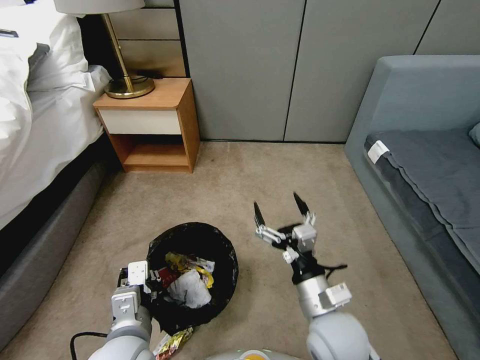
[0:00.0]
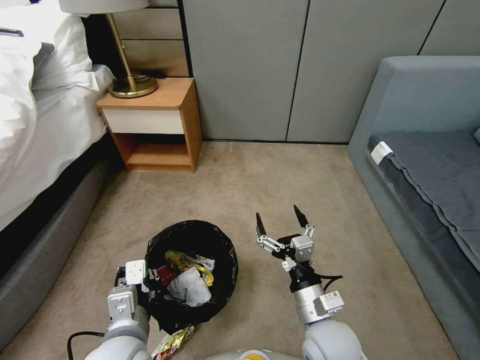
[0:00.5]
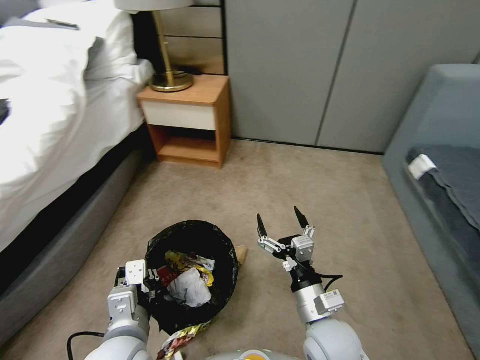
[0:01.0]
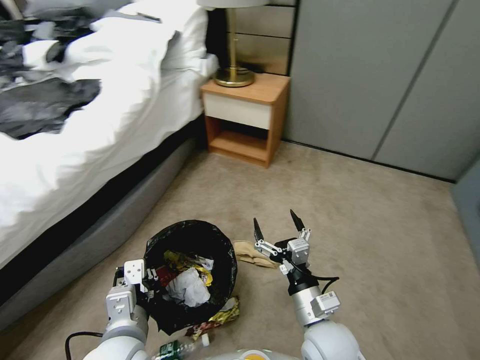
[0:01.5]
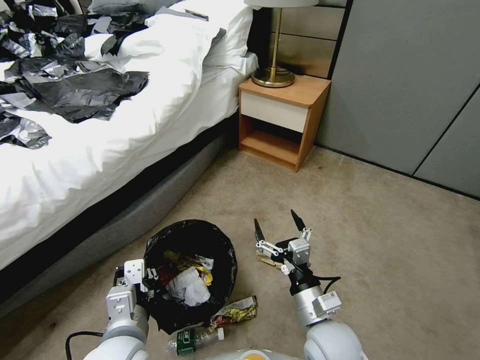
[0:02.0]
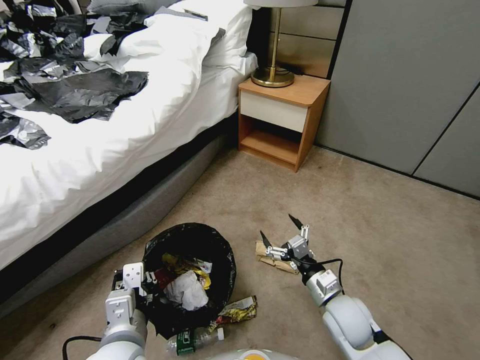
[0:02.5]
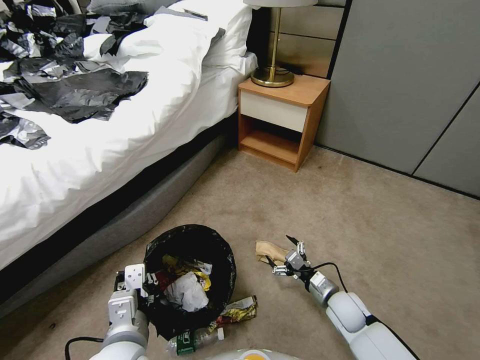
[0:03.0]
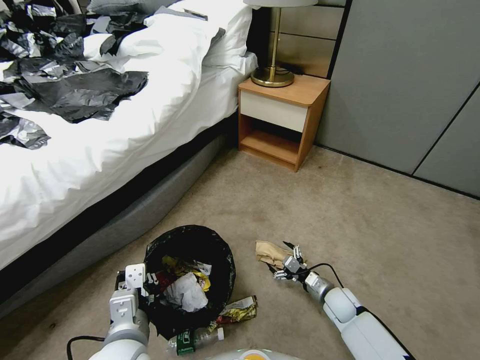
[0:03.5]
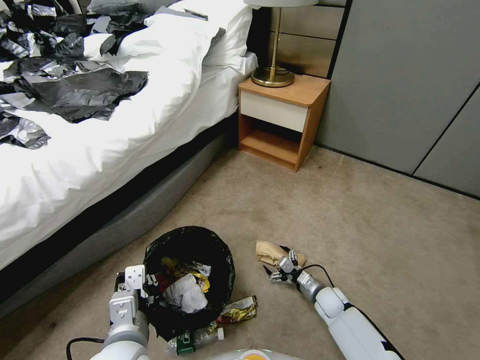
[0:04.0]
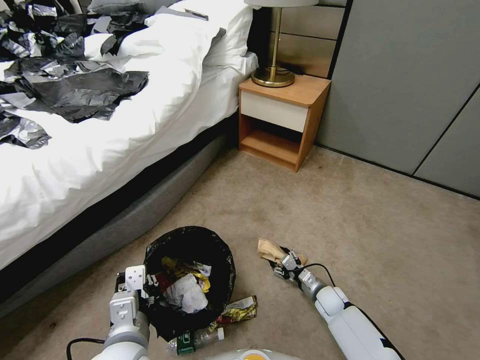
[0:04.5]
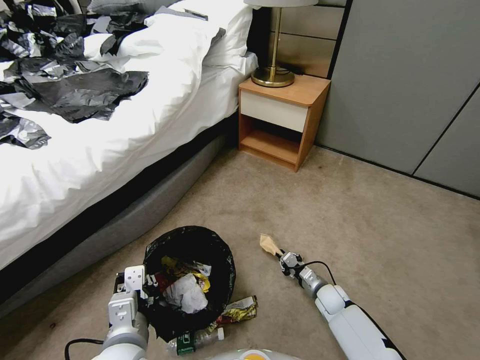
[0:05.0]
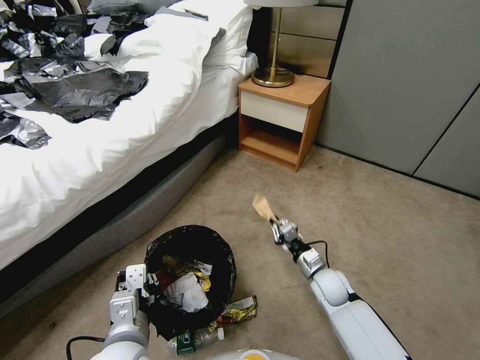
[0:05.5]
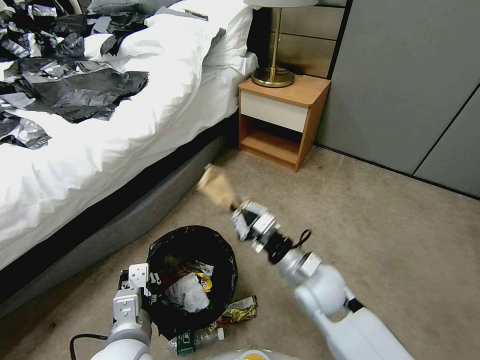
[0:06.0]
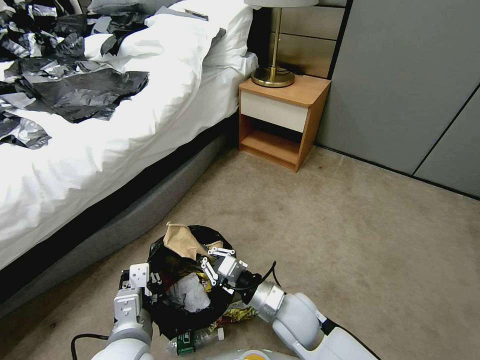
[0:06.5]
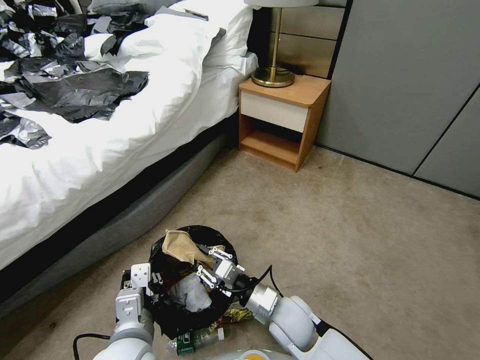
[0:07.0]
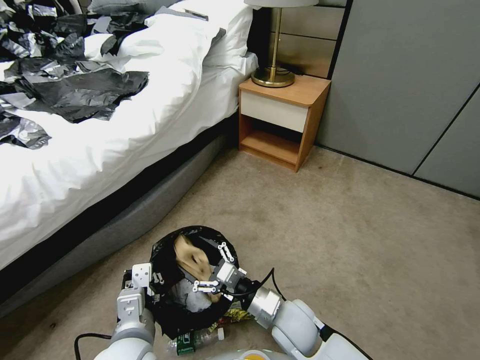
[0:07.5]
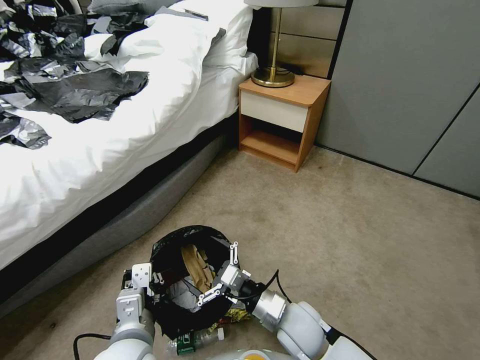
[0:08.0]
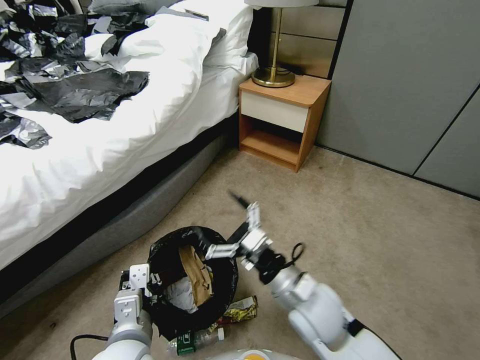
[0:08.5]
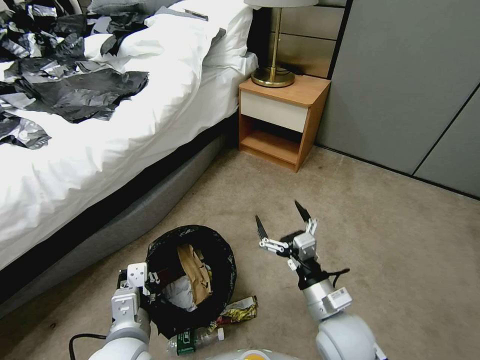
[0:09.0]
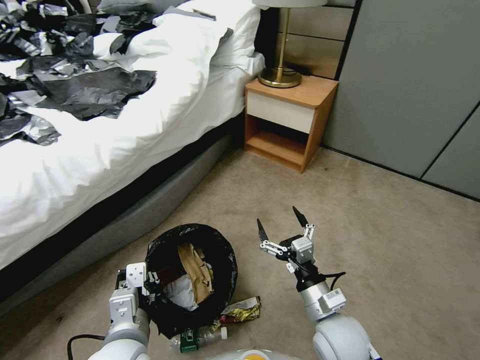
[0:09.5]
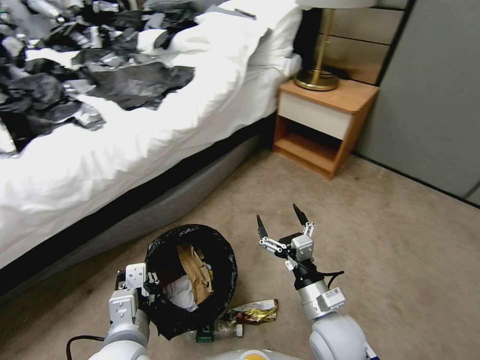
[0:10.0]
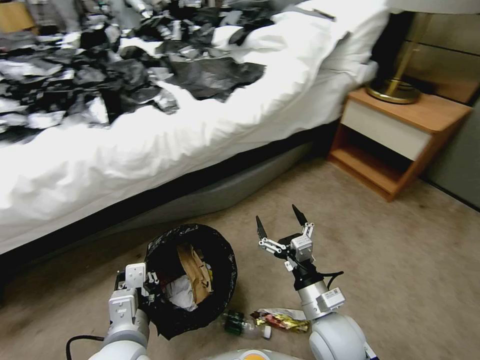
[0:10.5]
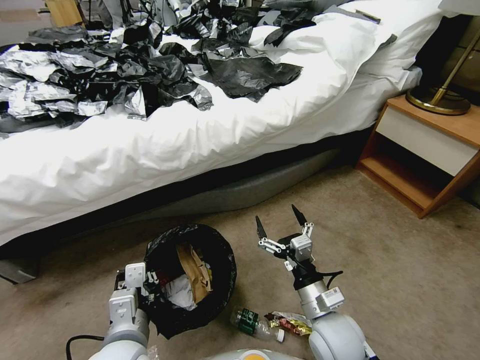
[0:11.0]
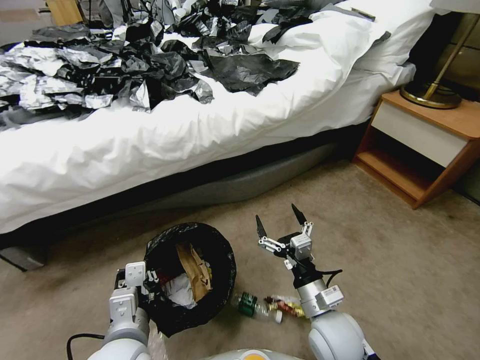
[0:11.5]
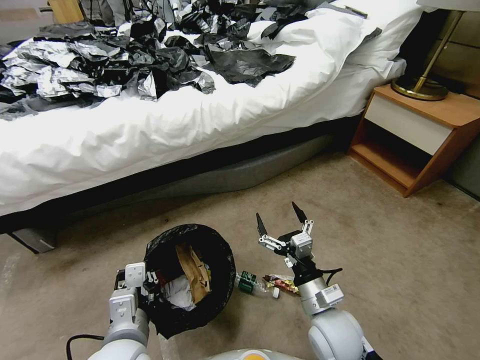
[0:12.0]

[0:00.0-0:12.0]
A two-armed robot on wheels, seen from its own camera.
Task of the whole recording: Pick up the trash bin, then pick up the garbage from the floor and place it into the trash bin.
0:02.0 to 0:04.0: The right gripper is displaced downward, forward and to the right by roughly 30 cm.
0:04.0 to 0:06.0: The right gripper moves upward and to the left, roughly 30 cm, and closes its fingers.
0:06.0 to 0:08.0: The right gripper goes about 10 cm downward and backward, and opens up.
0:08.0 to 0:10.0: The right gripper moves to the right, roughly 5 cm.

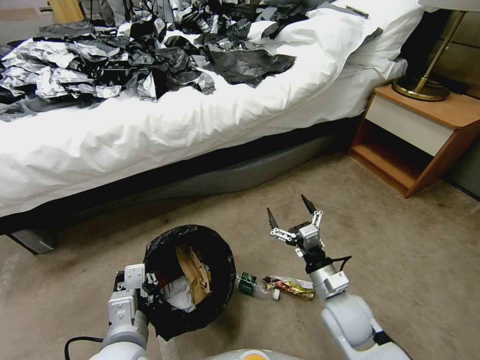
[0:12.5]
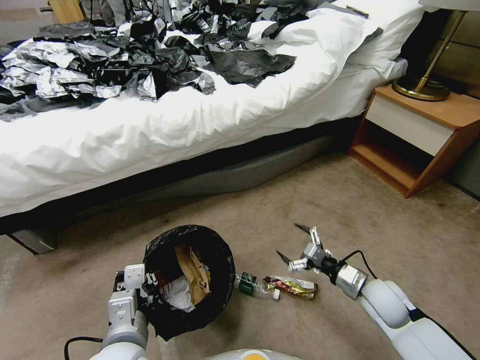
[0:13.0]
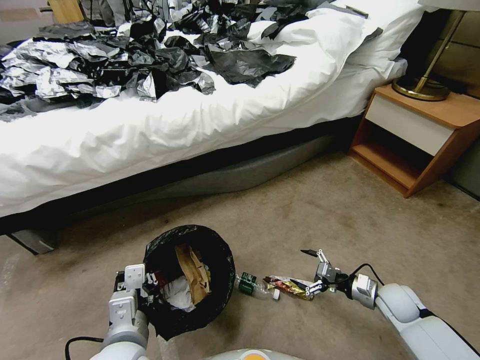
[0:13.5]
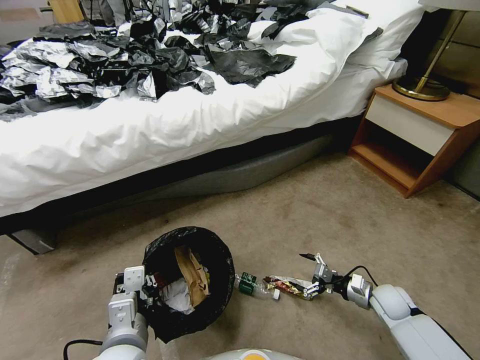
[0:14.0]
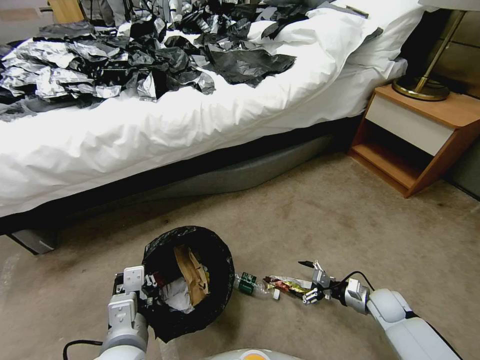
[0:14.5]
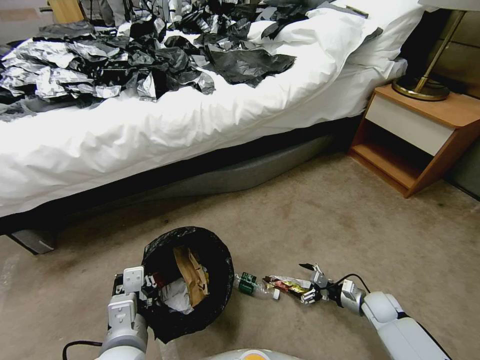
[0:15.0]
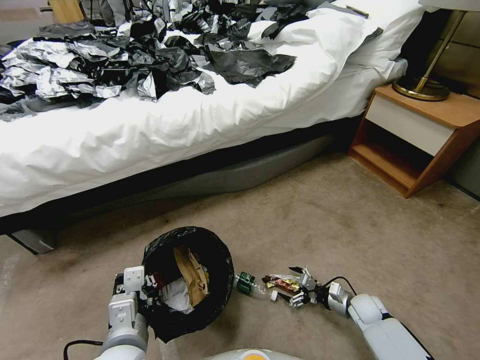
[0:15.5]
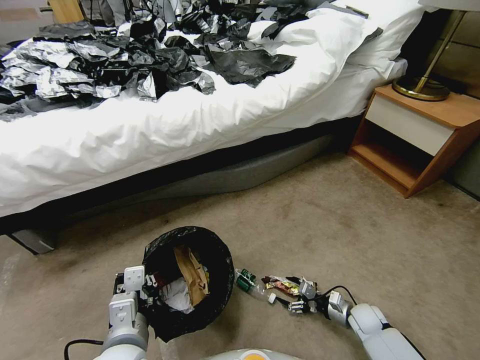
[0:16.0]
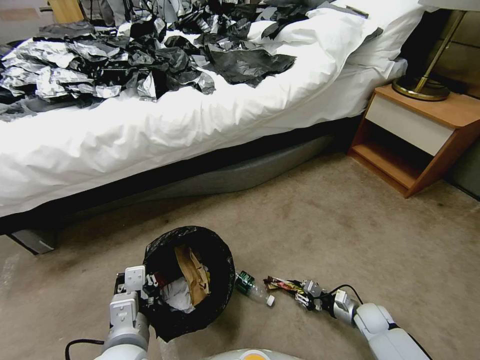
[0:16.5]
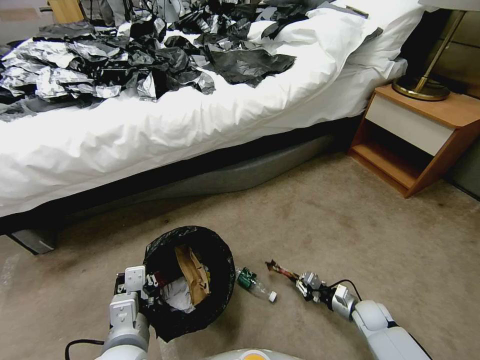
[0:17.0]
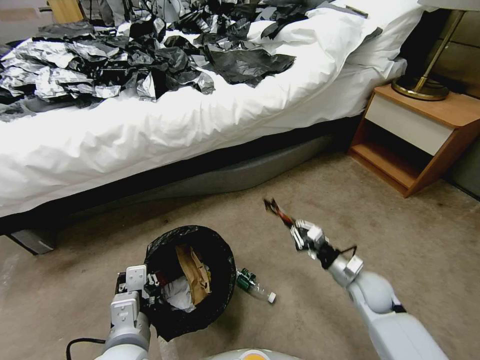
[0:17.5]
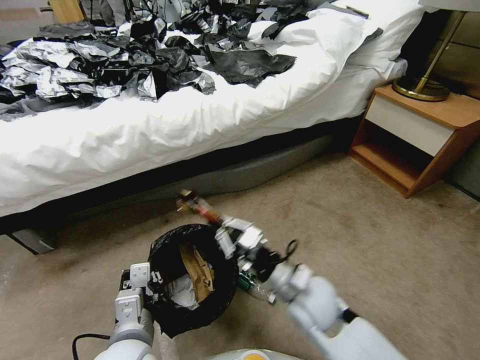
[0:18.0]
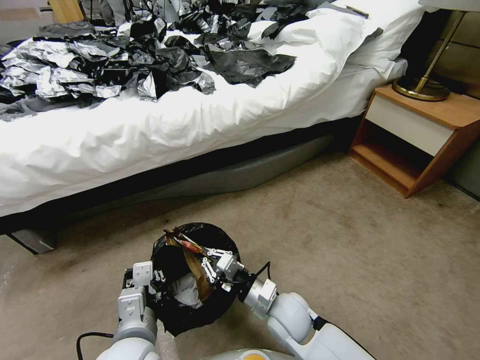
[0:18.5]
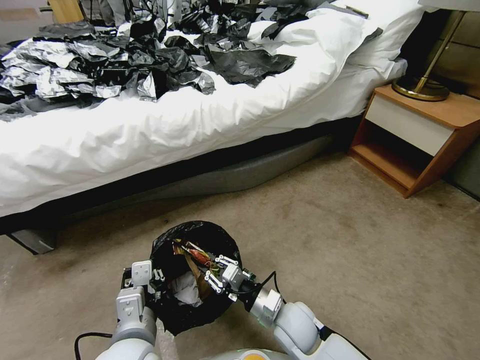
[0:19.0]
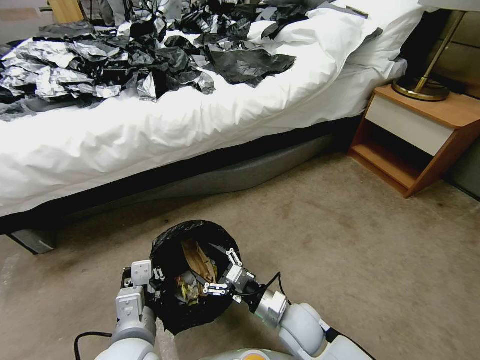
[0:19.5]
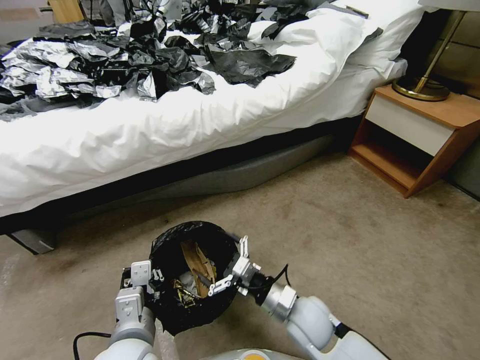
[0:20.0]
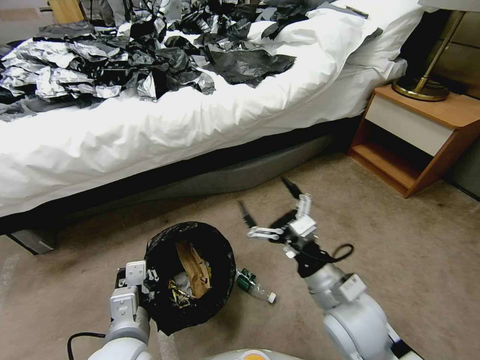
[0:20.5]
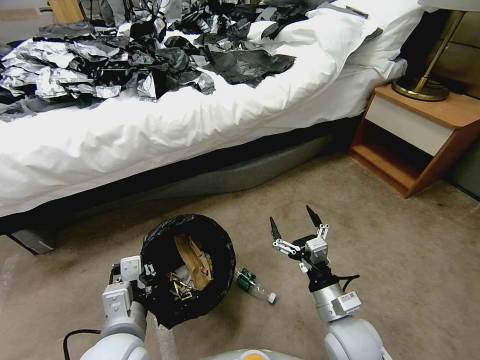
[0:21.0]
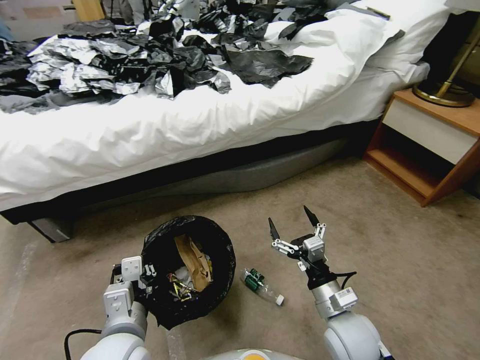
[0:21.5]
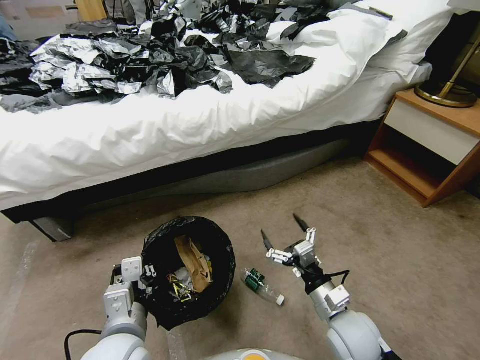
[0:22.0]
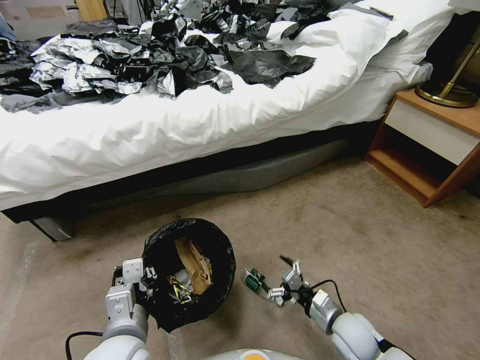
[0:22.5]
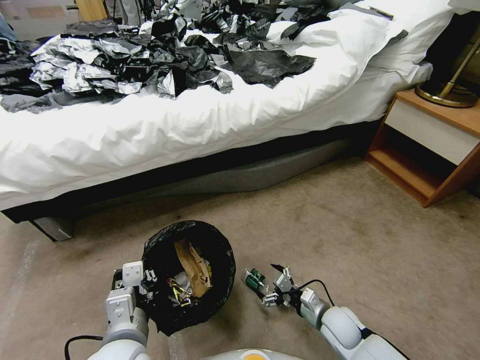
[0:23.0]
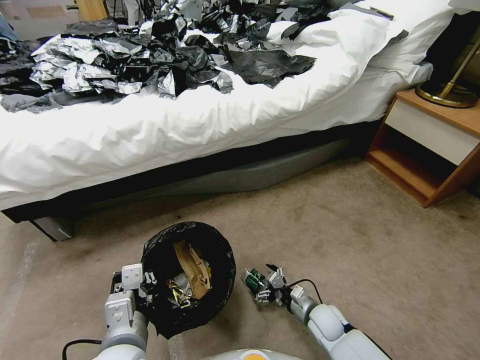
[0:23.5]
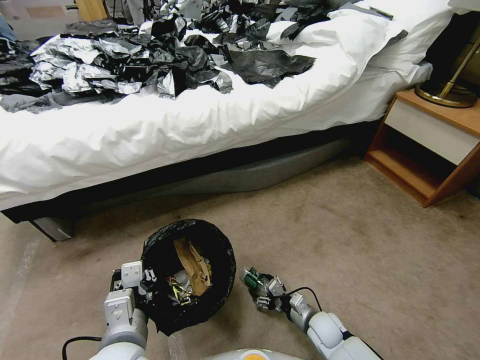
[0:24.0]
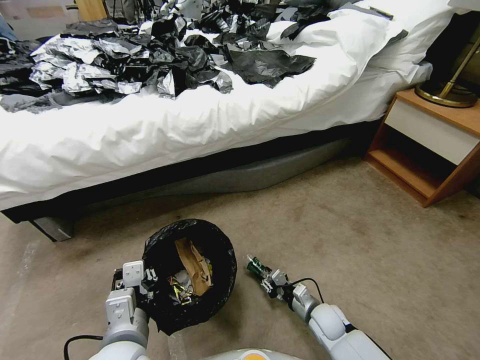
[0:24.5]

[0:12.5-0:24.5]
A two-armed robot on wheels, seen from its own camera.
Task of the whole recording: Pick up the trash bin, then pick up the garbage from the floor and place it into the trash bin.
0:12.5 to 0:14.5: The right gripper goes approximately 25 cm to the right and downward.
0:14.5 to 0:16.5: The right gripper travels downward by about 5 cm, and closes.
0:16.5 to 0:18.5: The right gripper shifts approximately 30 cm to the left and upward.
0:18.5 to 0:20.5: The right gripper moves upward and to the right, about 15 cm, and opens up.
0:20.5 to 0:22.5: The right gripper moves downward, some 20 cm.
0:22.5 to 0:24.5: The right gripper travels downward by approximately 10 cm, and closes its fingers.

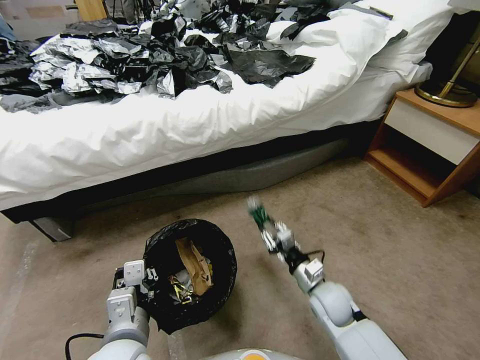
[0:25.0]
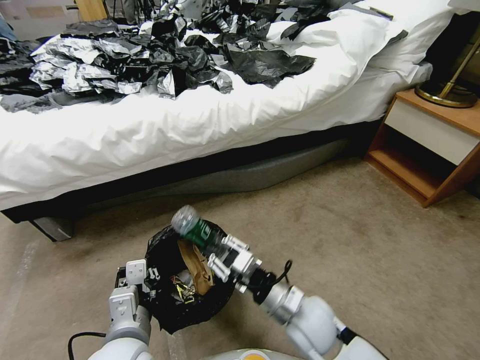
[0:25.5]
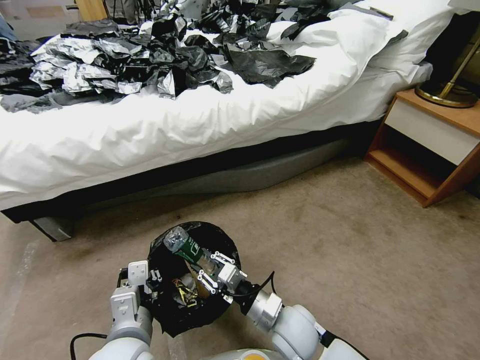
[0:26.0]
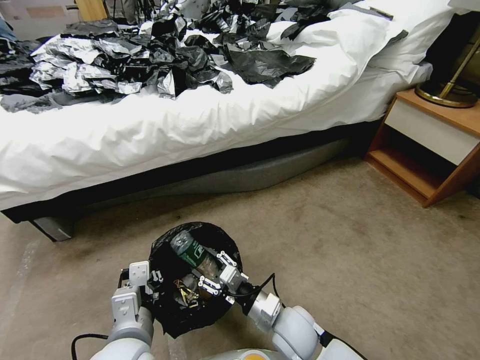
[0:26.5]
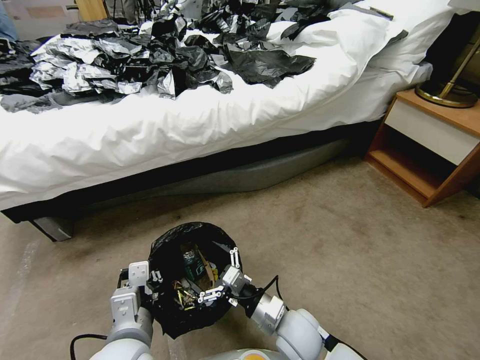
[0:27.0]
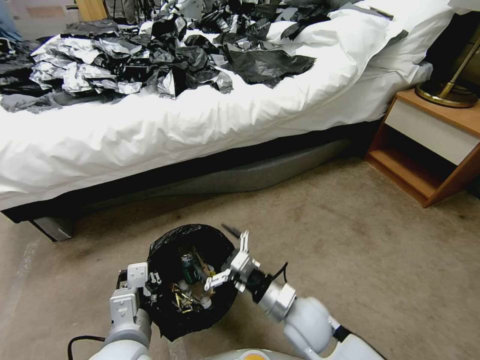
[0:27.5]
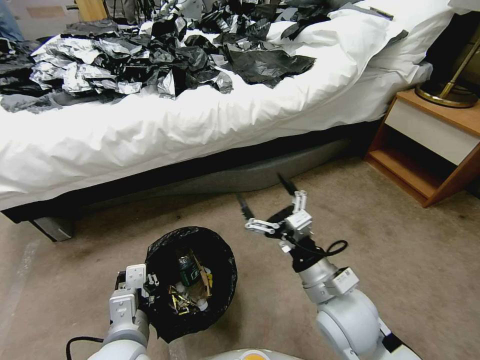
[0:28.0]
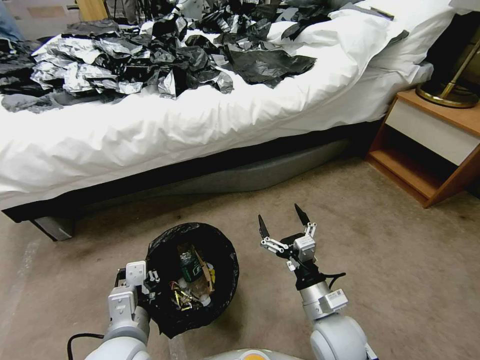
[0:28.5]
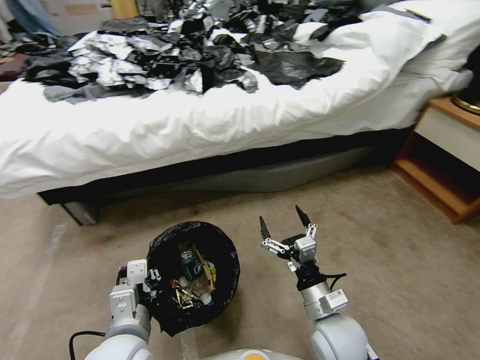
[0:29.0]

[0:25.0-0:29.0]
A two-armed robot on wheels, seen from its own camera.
Task of the whole recording: Pick up the trash bin, then pick up the garbage from the floor and place it into the trash bin.
0:25.0 to 0:27.0: The right gripper travels to the left and backward by roughly 10 cm, and opens up.
0:27.0 to 0:29.0: The right gripper is displaced to the right by about 5 cm, and travels upward and back again, approximately 15 cm each way.
